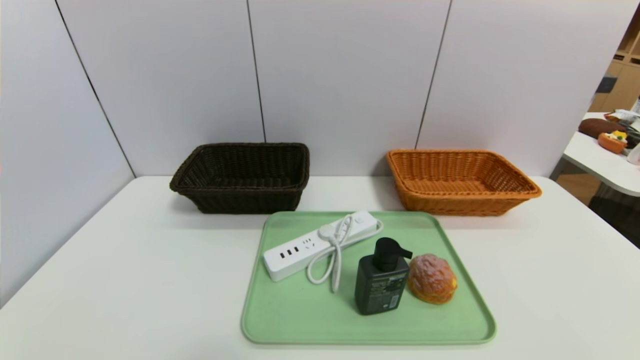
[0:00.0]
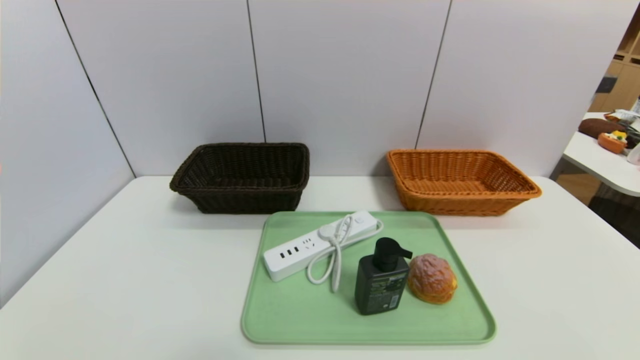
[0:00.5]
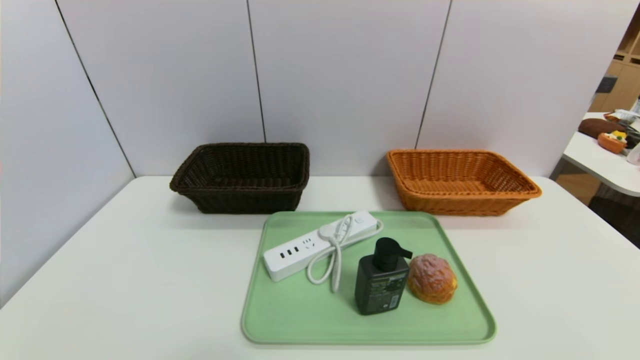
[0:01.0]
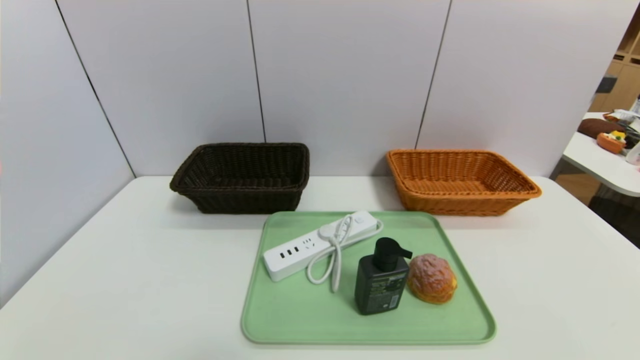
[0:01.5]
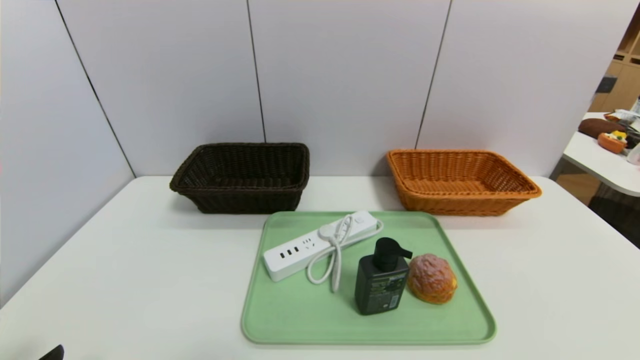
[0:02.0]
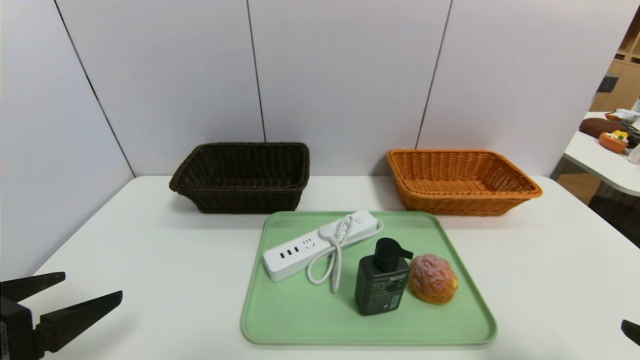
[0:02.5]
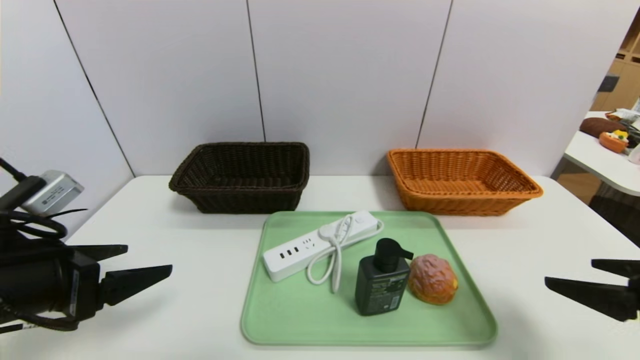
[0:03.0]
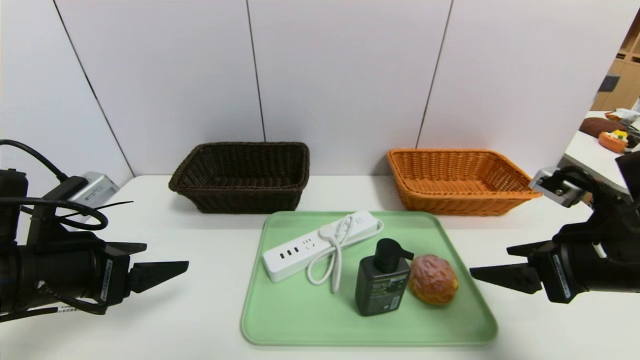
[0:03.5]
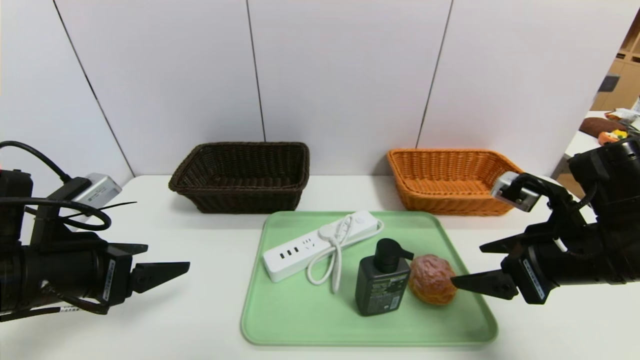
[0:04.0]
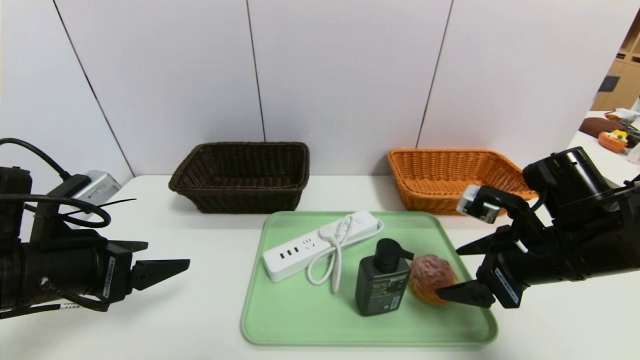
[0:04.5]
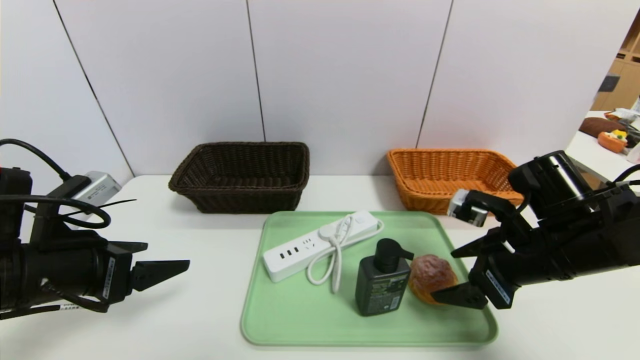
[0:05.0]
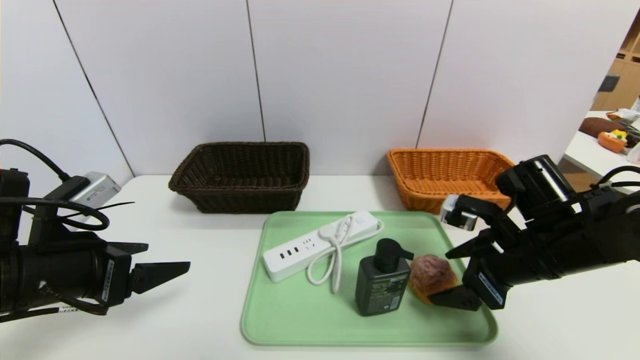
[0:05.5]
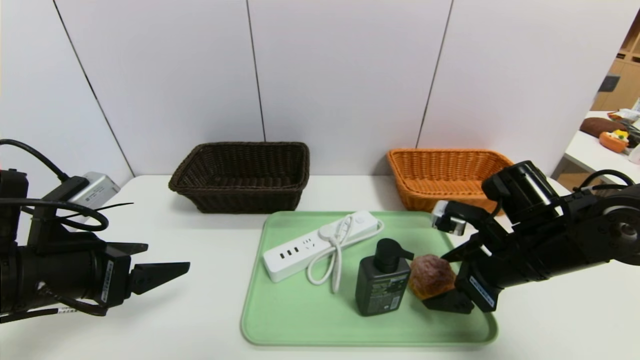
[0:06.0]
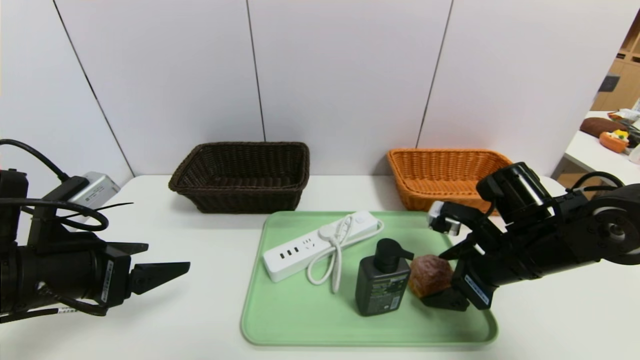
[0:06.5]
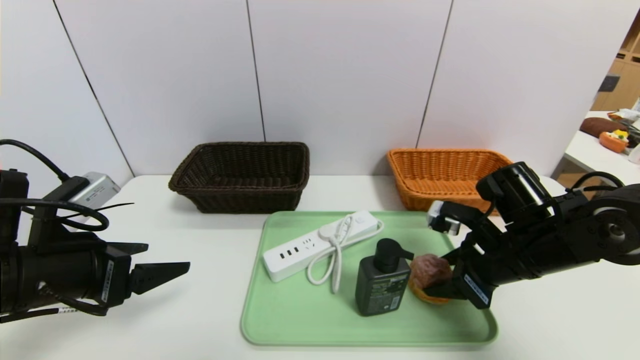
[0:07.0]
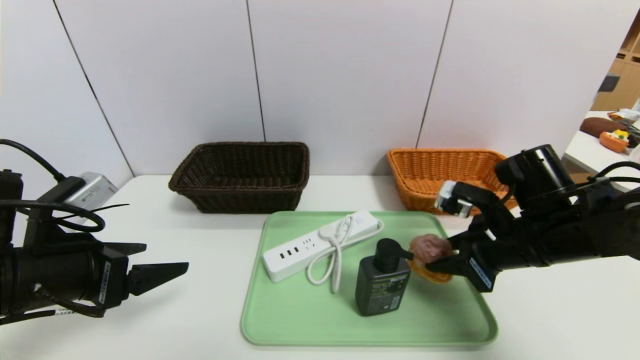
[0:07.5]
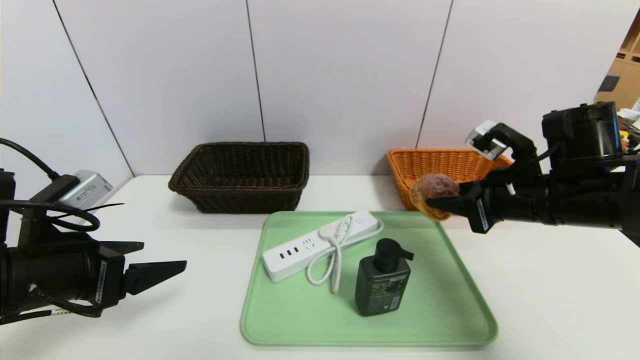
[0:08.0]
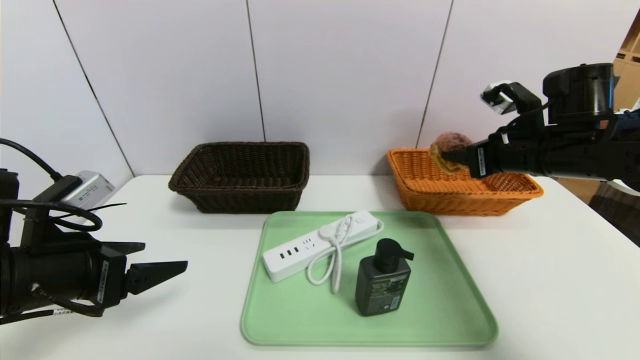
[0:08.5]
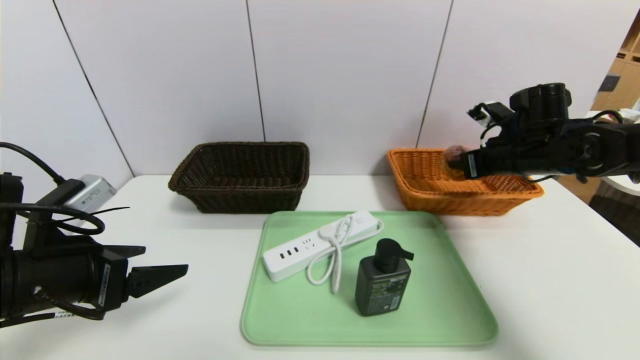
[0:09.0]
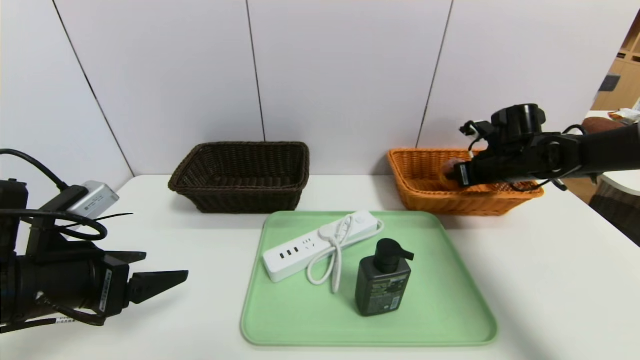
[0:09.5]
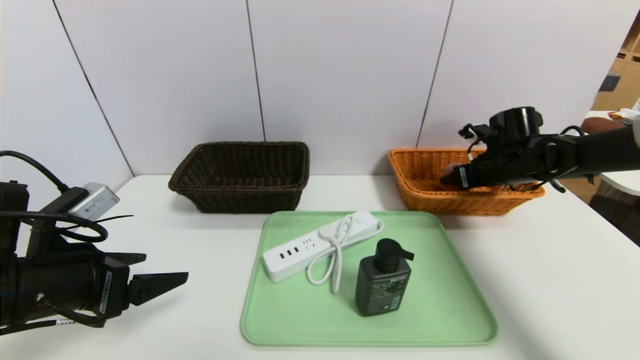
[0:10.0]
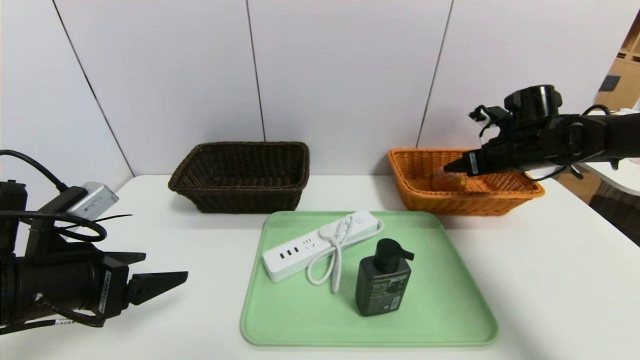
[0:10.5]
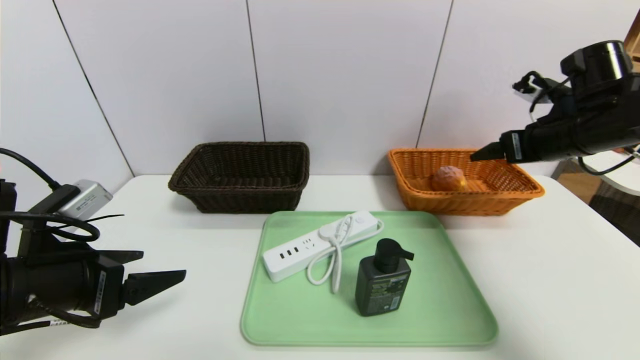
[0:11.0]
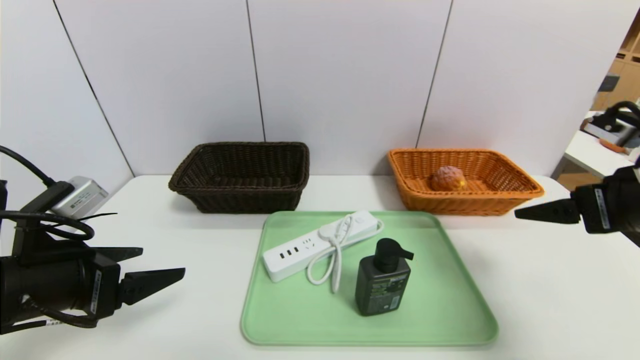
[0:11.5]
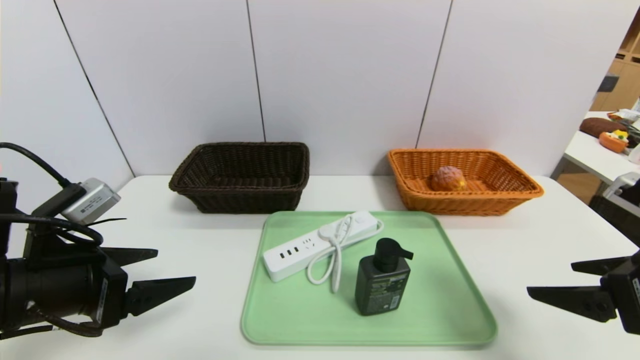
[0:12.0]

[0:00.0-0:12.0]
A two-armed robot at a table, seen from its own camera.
Task of the whole recording: place the food in the right basket with the right gripper, and place the non food items in the left basket with the left gripper.
Step, 0:00.0 to 0:10.0: Grasp the round bread and put it in the right basket.
0:02.0 to 0:04.0: The two grippers go approximately 20 cm forward.
0:04.0 to 0:06.0: The right gripper shifts by roughly 5 cm.
0:06.0 to 0:08.0: The right gripper shifts roughly 5 cm upward, and closes up.
0:08.0 to 0:10.0: The right gripper moves forward and to the right, roughly 20 cm, and opens its fingers.
0:10.0 to 0:12.0: The right gripper heads backward, covering roughly 30 cm, and opens up.

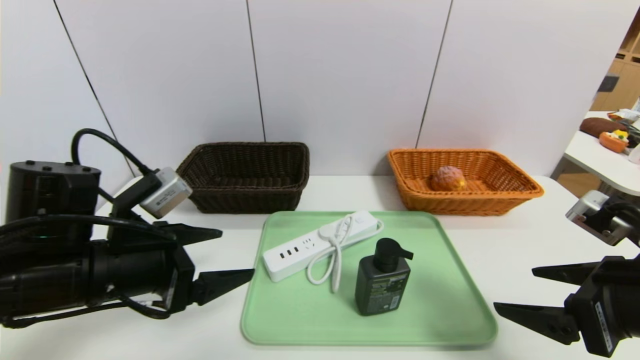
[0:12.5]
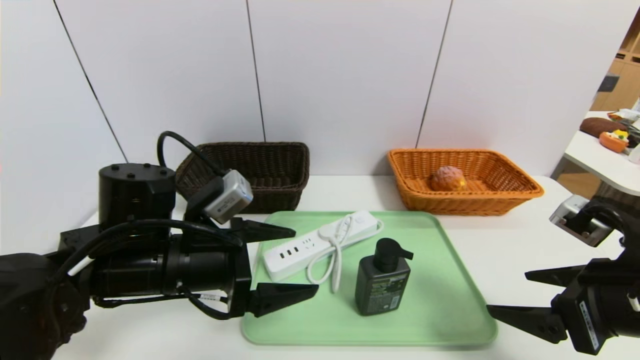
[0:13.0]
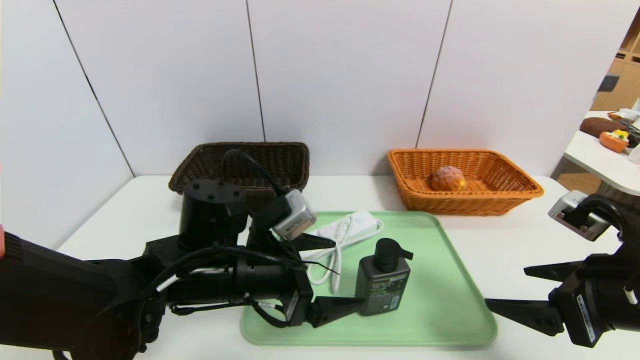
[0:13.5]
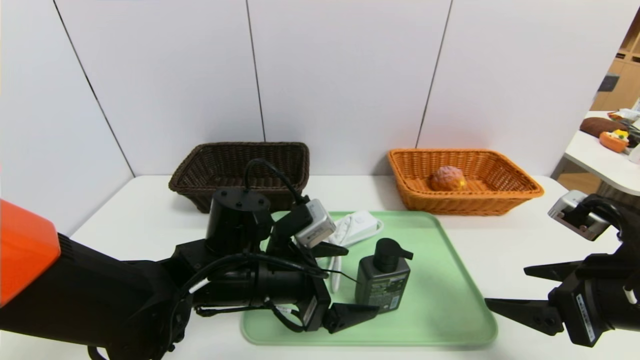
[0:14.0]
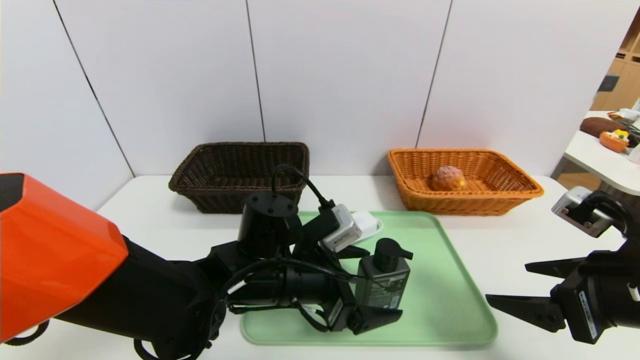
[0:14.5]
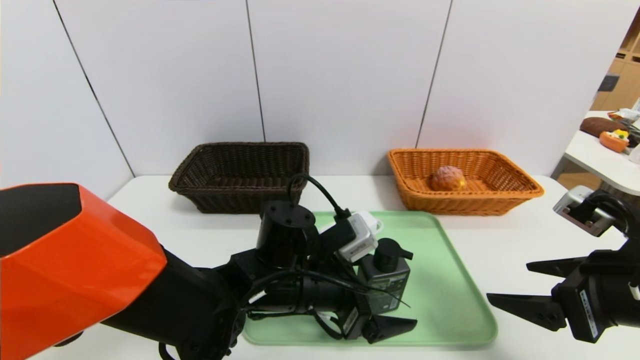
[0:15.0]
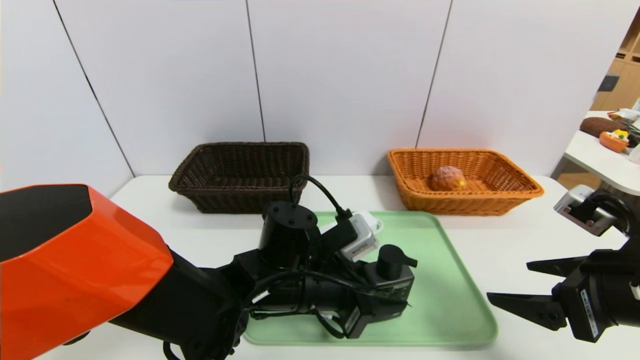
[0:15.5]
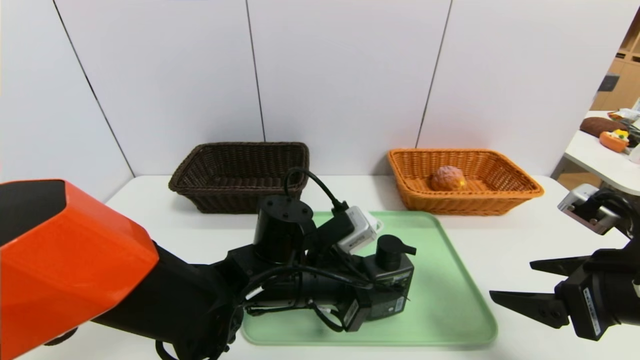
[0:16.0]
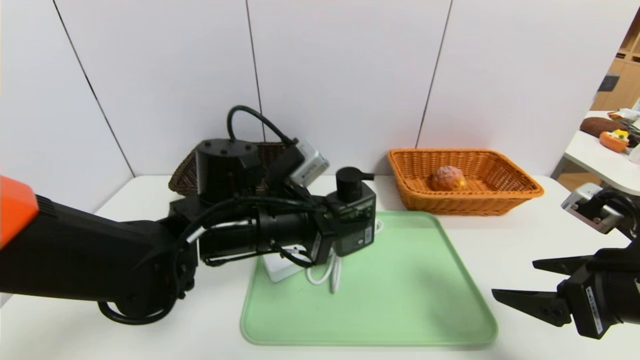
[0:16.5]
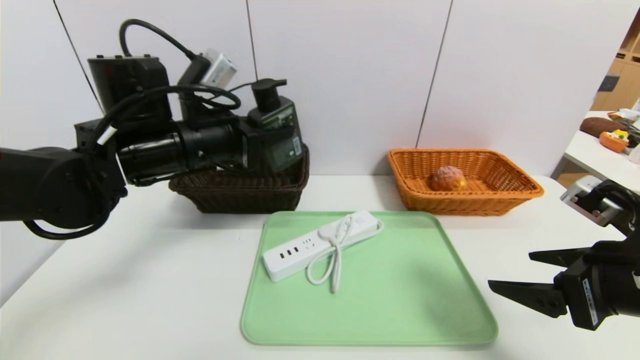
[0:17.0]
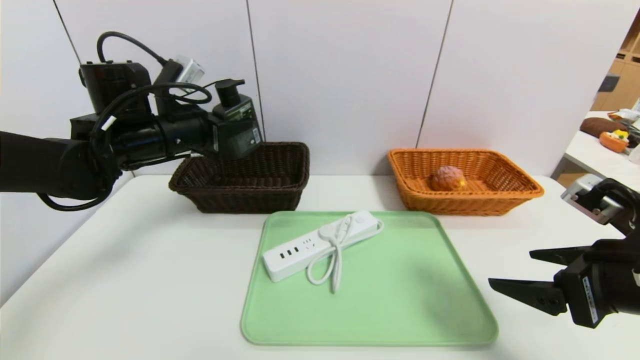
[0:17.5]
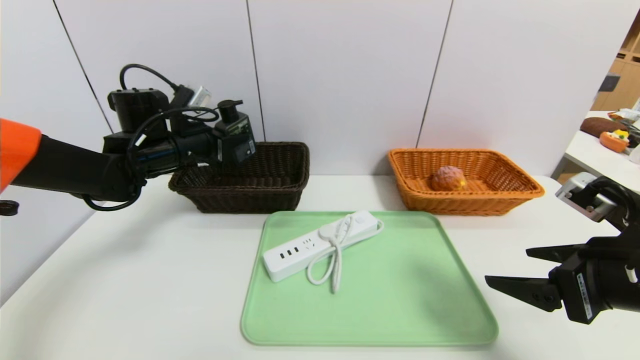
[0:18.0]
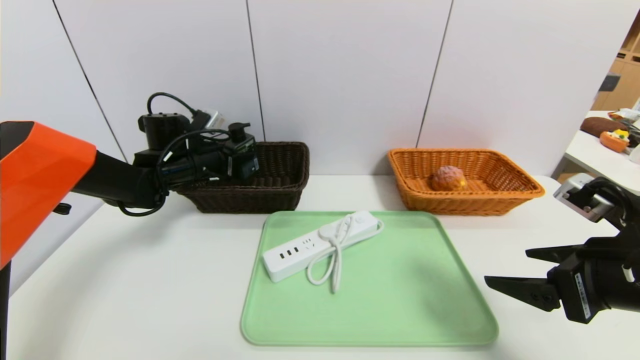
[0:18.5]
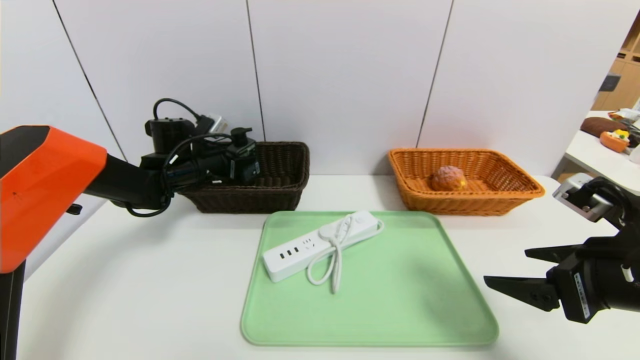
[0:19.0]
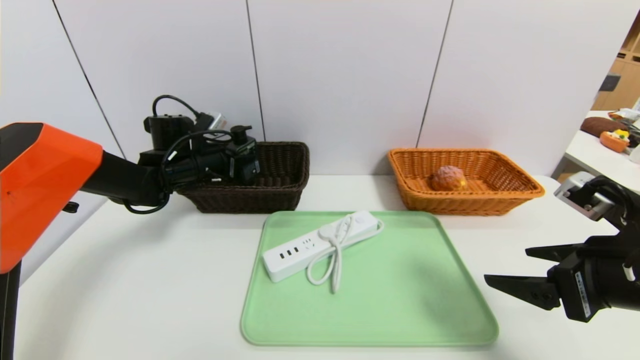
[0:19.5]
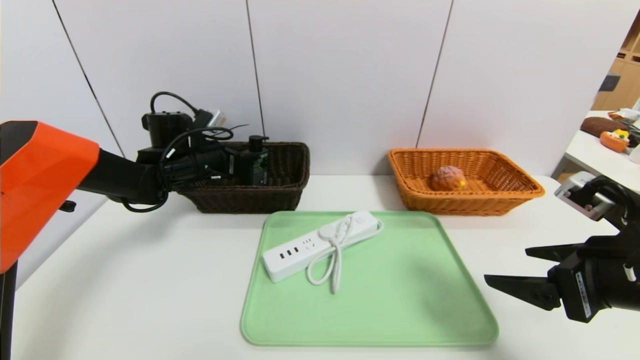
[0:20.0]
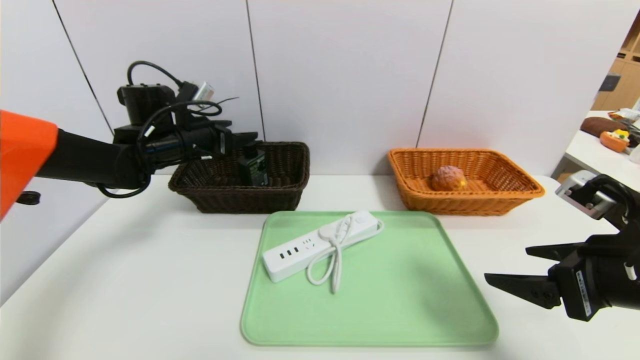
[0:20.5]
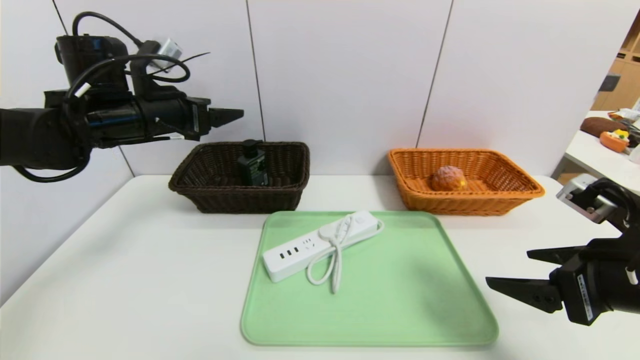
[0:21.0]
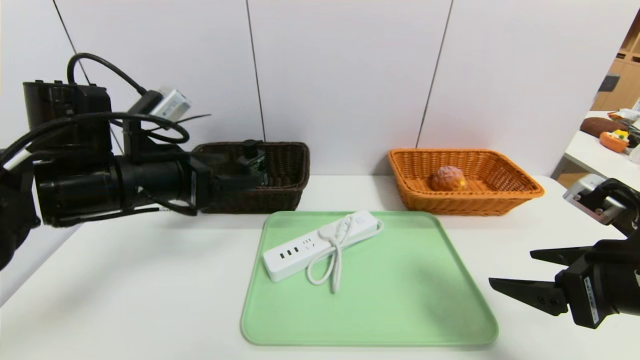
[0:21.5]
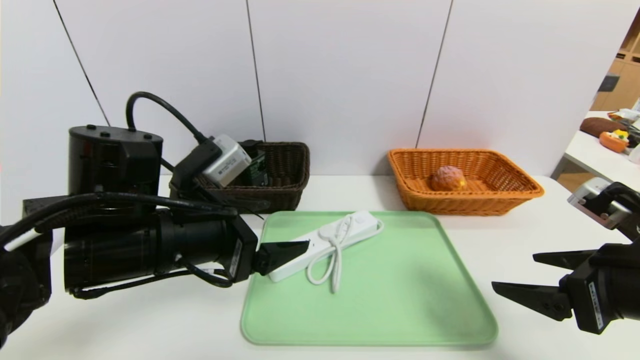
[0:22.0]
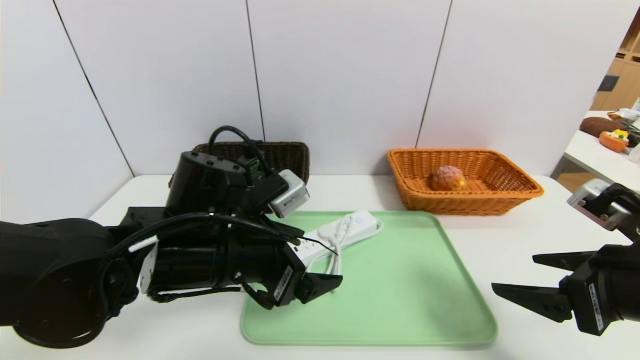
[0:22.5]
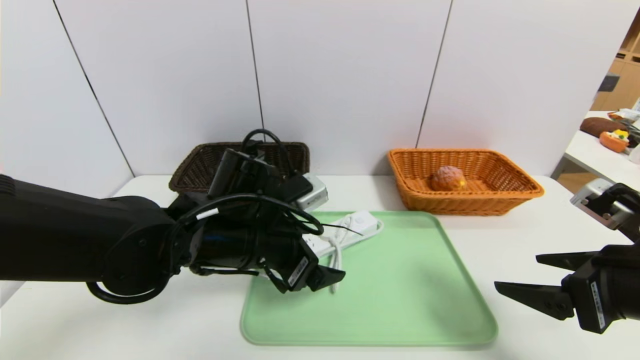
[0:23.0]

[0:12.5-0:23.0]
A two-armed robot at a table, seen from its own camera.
Task of the whole recording: place the food in the right basket with the right gripper, and place the non food items in the left basket with the left gripper.
Step, 0:12.5 to 0:20.0: Grasp the hard cleanser and put it in the left basket.
0:12.5 to 0:14.5: The left gripper shifts about 15 cm to the right.
0:14.5 to 0:16.5: The left gripper moves upward, some 5 cm, and closes up.
0:16.5 to 0:19.0: The left gripper moves forward and to the left, about 25 cm.
0:19.0 to 0:21.0: The left gripper is displaced upward and backward by approximately 15 cm, and opens.
0:21.0 to 0:23.0: The left gripper goes approximately 20 cm to the right, backward and downward.
